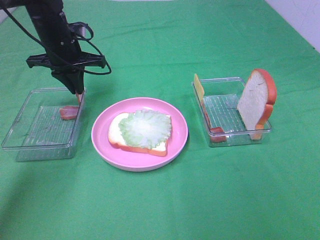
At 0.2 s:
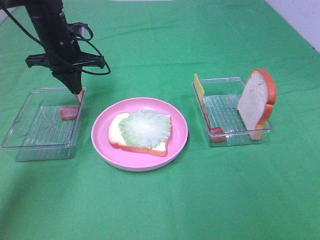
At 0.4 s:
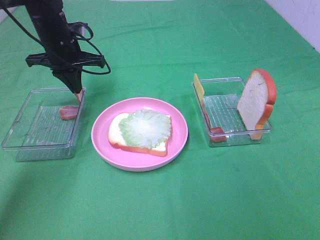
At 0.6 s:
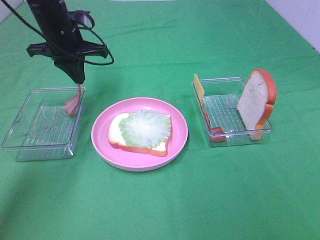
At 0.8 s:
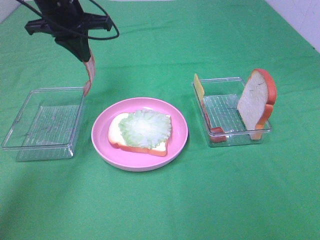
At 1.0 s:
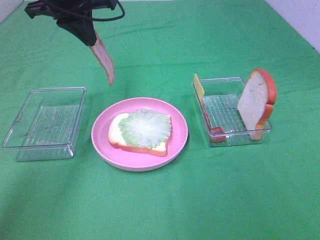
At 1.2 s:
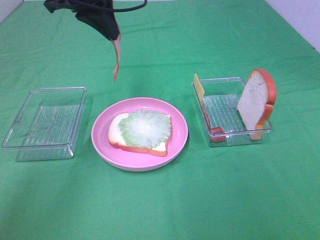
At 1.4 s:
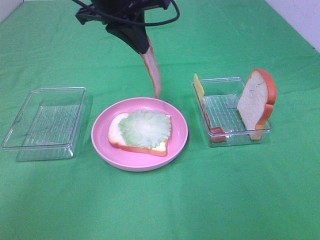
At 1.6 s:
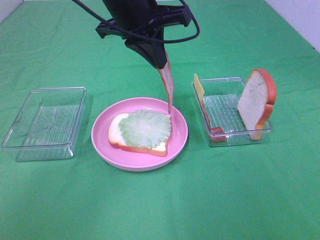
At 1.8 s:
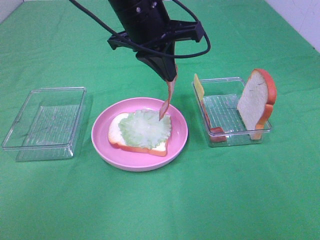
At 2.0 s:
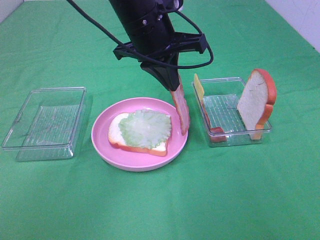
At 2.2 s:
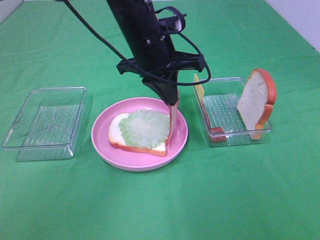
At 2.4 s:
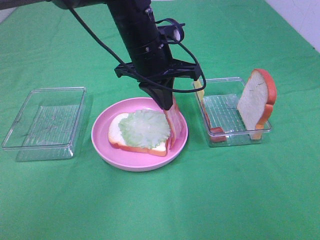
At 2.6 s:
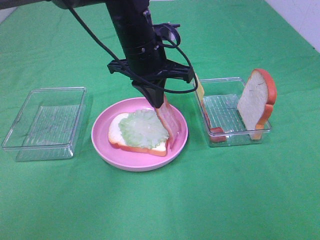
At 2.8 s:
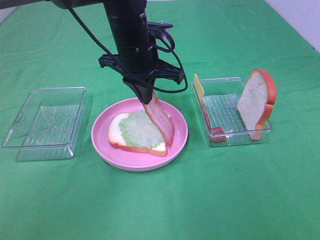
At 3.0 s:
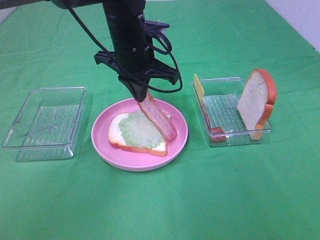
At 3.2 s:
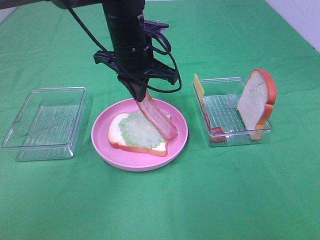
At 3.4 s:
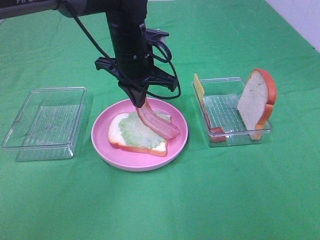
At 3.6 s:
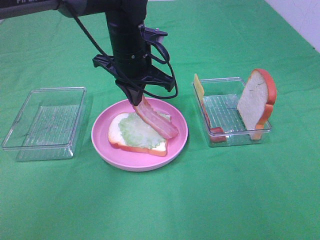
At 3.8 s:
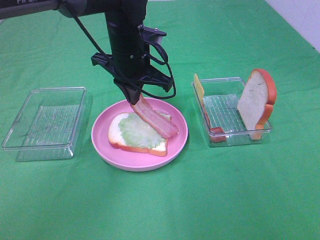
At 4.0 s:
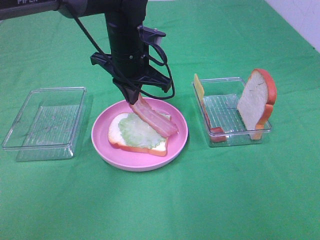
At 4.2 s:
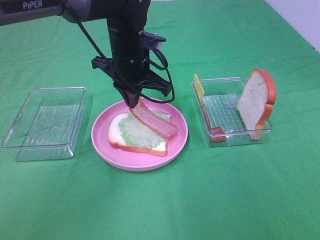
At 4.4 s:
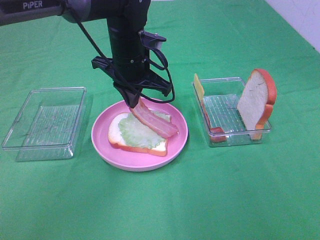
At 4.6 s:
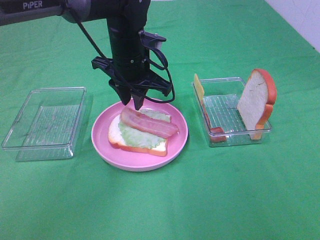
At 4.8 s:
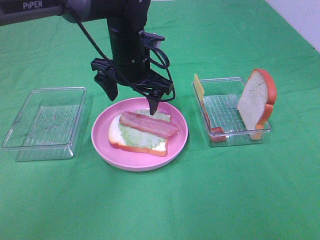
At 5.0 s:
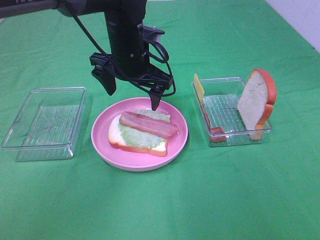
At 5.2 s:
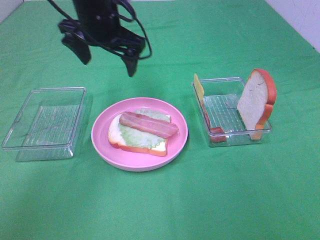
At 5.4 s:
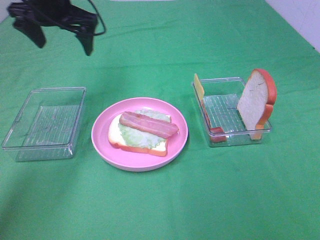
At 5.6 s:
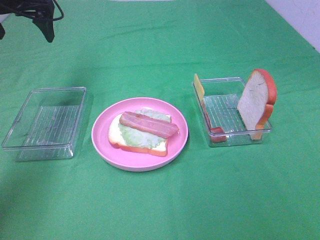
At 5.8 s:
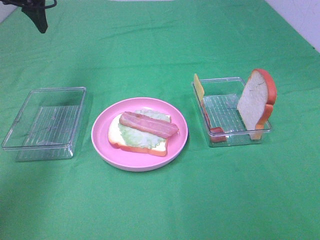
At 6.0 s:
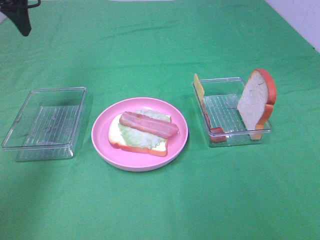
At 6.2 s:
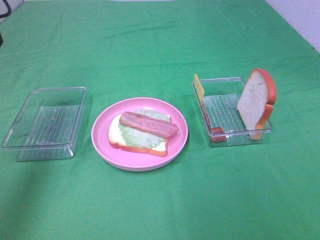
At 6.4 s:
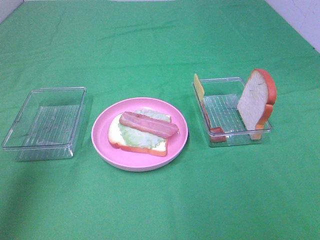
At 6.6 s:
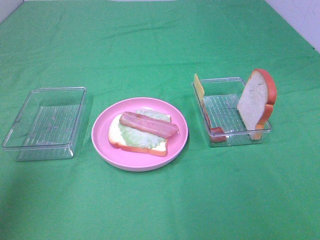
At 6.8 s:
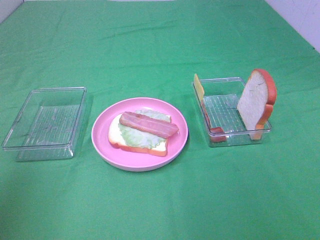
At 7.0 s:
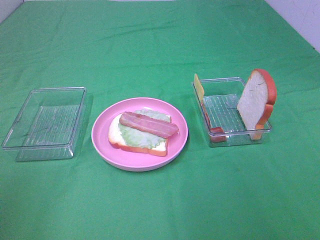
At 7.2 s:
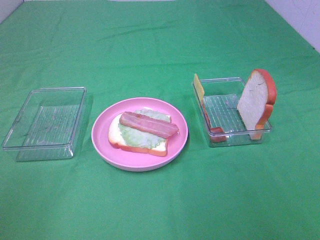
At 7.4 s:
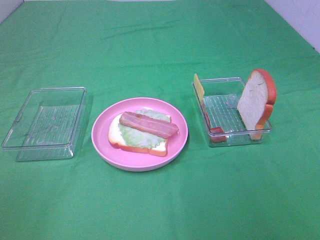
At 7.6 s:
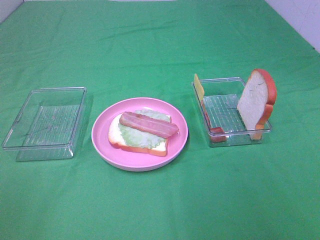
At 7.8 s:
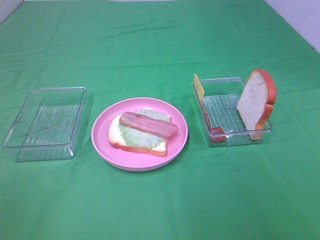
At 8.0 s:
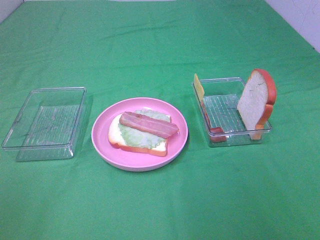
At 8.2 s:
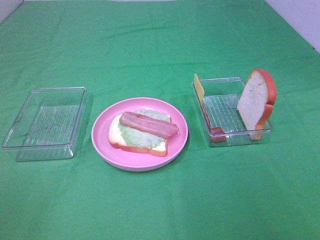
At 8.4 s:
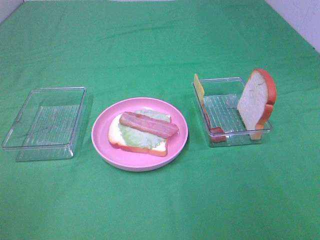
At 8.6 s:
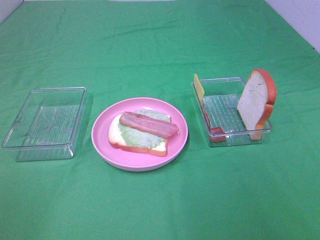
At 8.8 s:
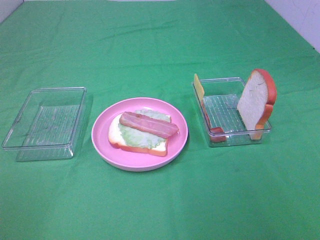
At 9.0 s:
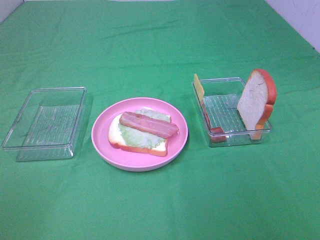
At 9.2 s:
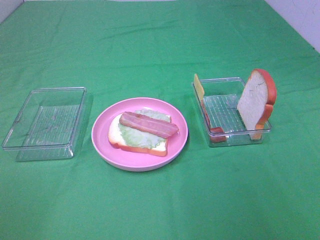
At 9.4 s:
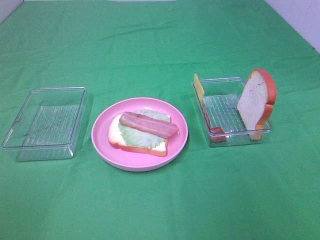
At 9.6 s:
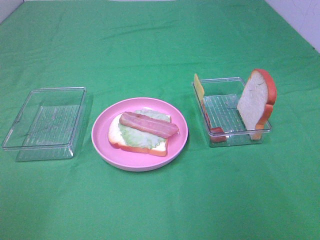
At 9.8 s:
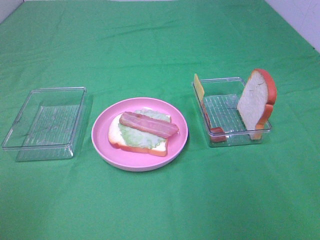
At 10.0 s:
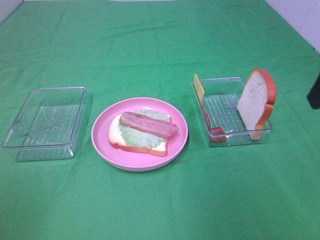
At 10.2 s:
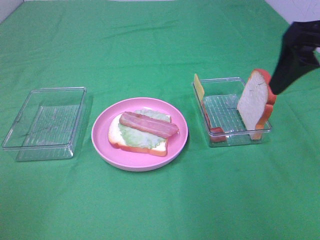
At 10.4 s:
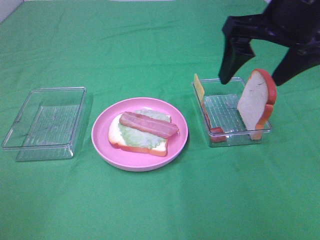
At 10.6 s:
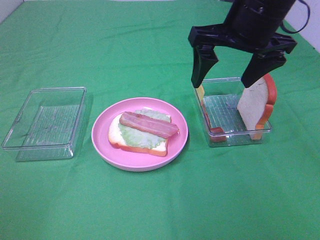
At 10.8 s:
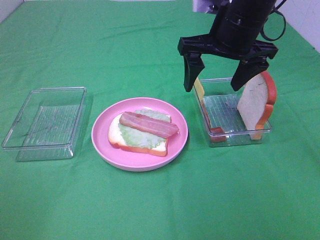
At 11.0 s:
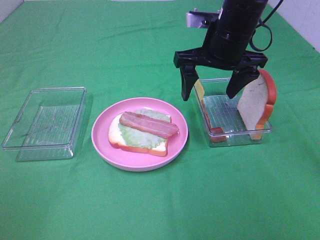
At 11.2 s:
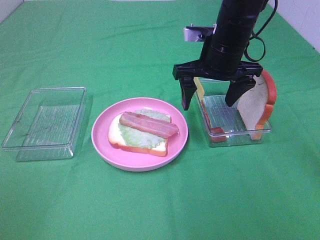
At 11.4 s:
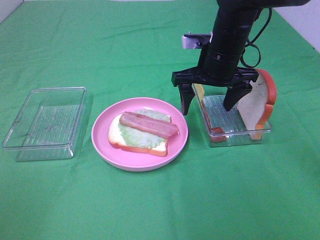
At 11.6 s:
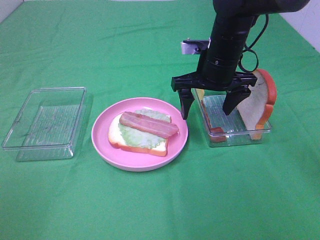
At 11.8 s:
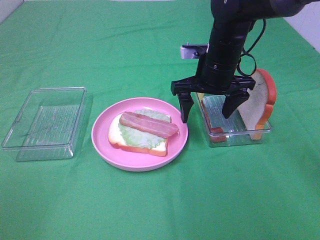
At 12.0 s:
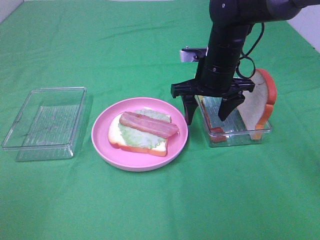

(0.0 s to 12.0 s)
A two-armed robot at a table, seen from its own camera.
Task of the whole recording: Make sandwiches.
Step, 0.8 s - 4.8 s: Left hand:place bacon on lettuce slice.
0.0 s - 1.6 s: The left gripper heads to the right, upward and backward, covering about 20 cm.
1.6 s - 3.0 s: The left gripper is displaced downward by some 10 cm.
3.0 s - 4.4 s: The grippers move only a little.
4.4 s - 6.0 s: The left gripper goes some 30 cm to the left and upward, and opens its fingers.
6.0 s - 7.6 s: The left gripper heads backward, covering some 40 cm.
9.0 s - 10.4 s: The right gripper heads forward and to the left, covering roughly 35 cm.
10.4 s - 12.0 s: The right gripper moves downward and forward, about 15 cm.

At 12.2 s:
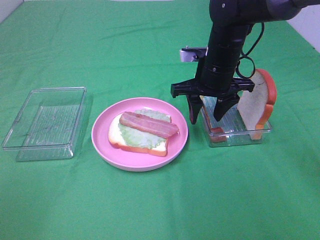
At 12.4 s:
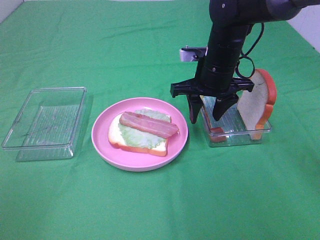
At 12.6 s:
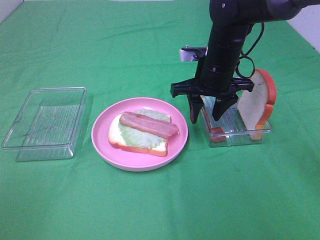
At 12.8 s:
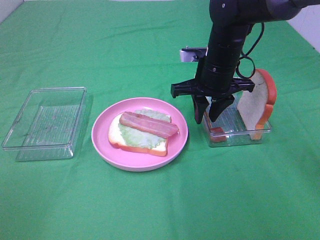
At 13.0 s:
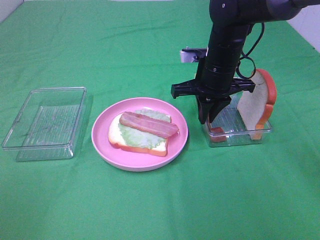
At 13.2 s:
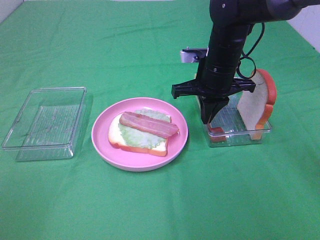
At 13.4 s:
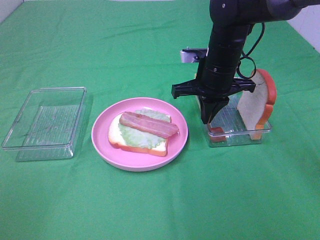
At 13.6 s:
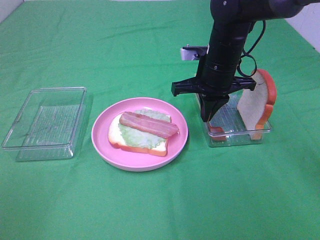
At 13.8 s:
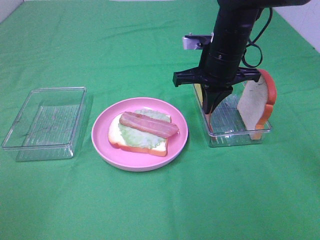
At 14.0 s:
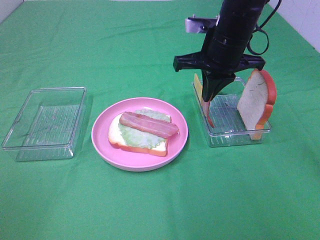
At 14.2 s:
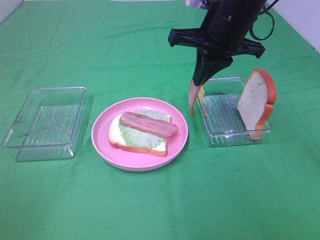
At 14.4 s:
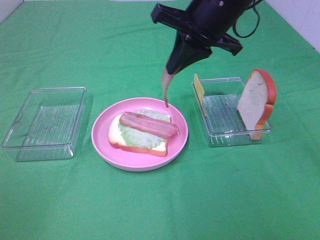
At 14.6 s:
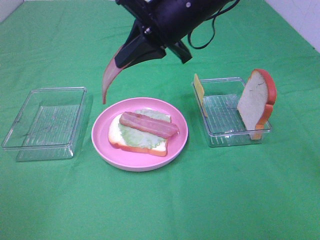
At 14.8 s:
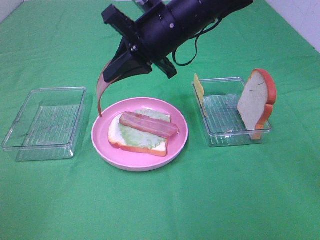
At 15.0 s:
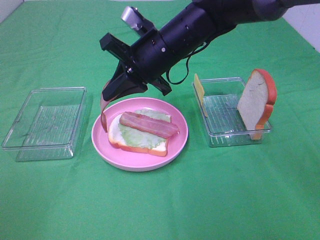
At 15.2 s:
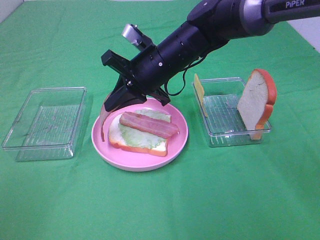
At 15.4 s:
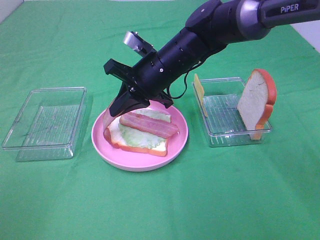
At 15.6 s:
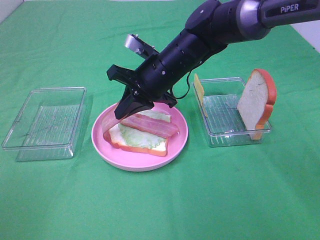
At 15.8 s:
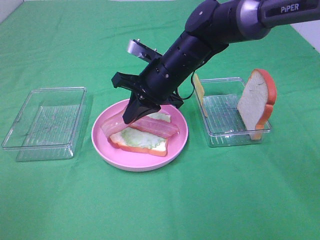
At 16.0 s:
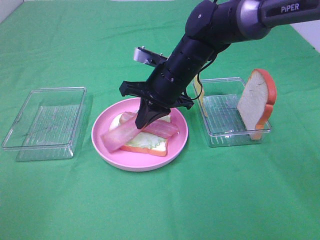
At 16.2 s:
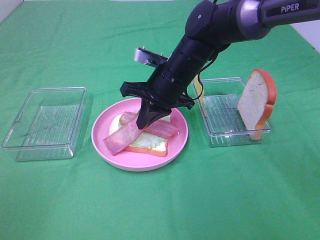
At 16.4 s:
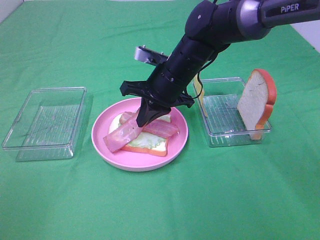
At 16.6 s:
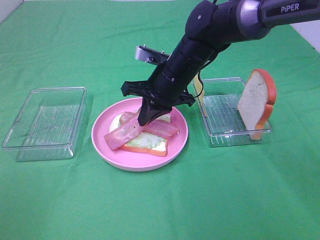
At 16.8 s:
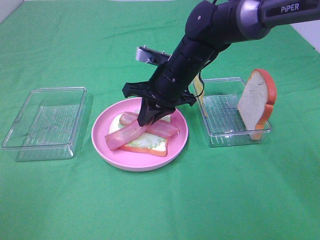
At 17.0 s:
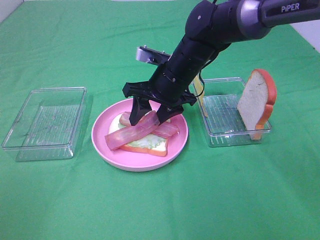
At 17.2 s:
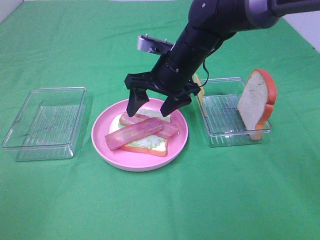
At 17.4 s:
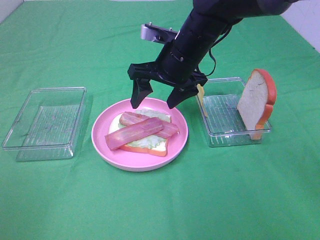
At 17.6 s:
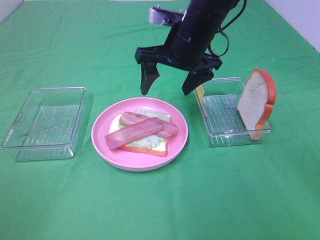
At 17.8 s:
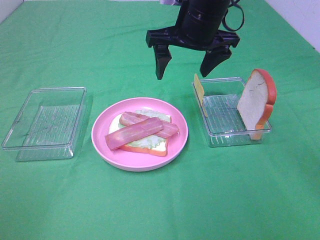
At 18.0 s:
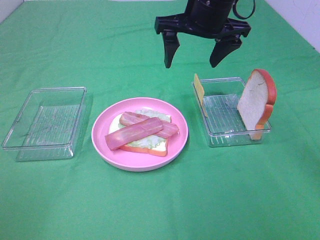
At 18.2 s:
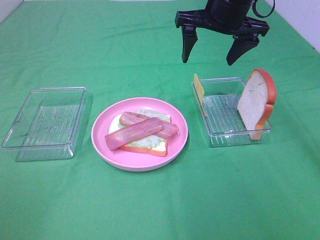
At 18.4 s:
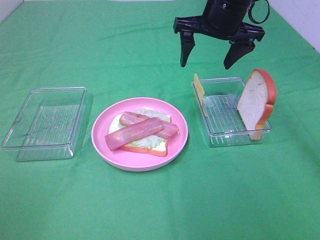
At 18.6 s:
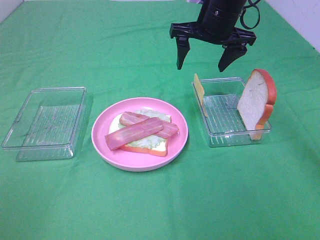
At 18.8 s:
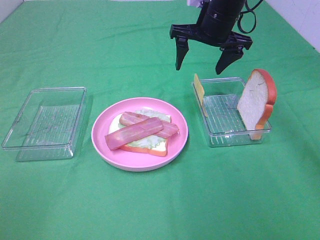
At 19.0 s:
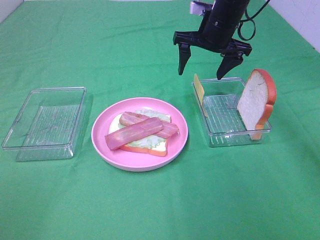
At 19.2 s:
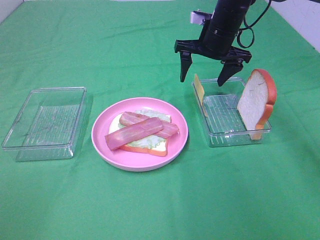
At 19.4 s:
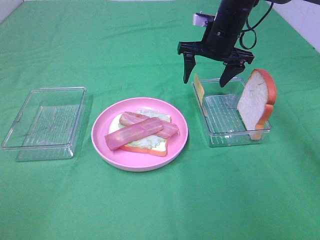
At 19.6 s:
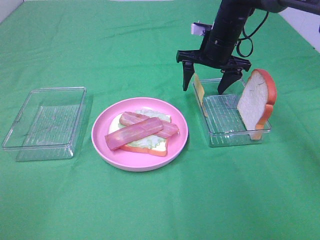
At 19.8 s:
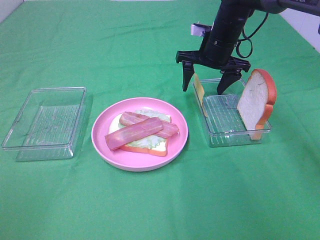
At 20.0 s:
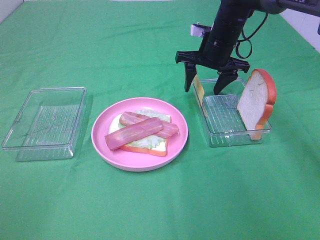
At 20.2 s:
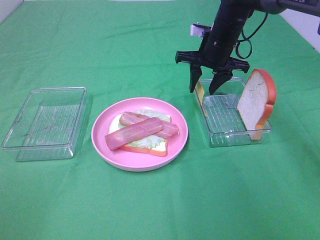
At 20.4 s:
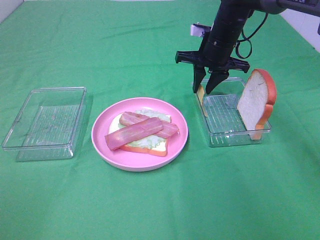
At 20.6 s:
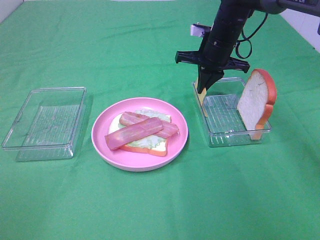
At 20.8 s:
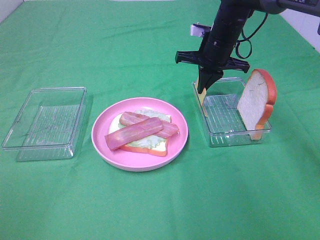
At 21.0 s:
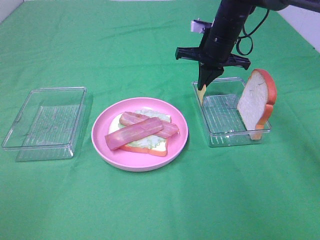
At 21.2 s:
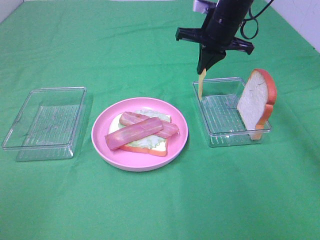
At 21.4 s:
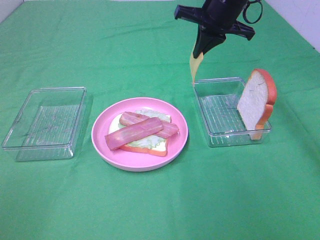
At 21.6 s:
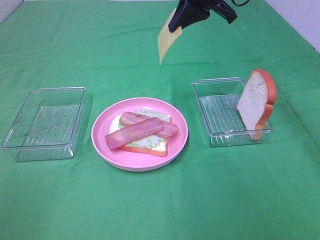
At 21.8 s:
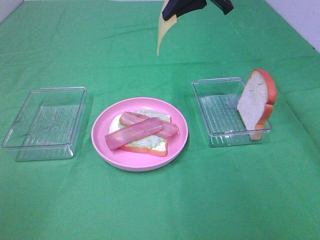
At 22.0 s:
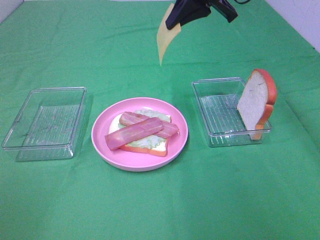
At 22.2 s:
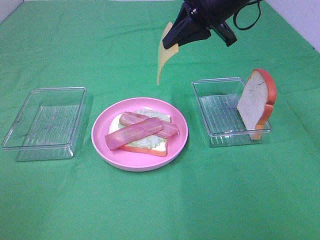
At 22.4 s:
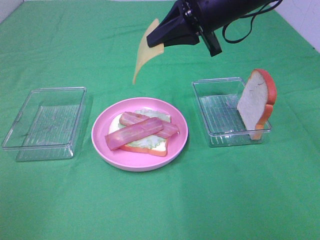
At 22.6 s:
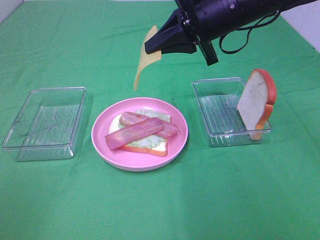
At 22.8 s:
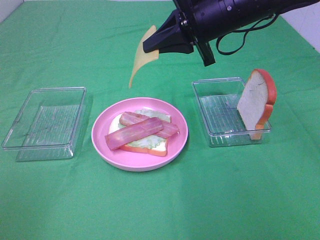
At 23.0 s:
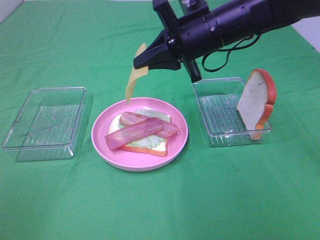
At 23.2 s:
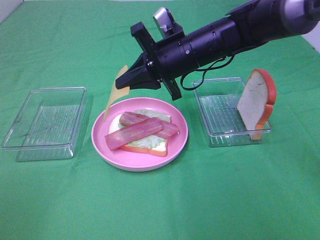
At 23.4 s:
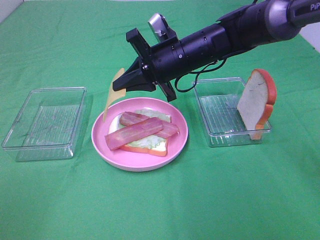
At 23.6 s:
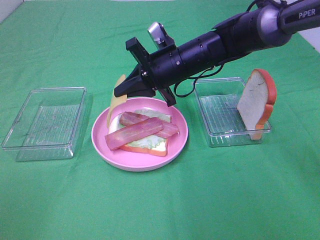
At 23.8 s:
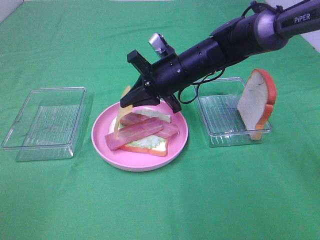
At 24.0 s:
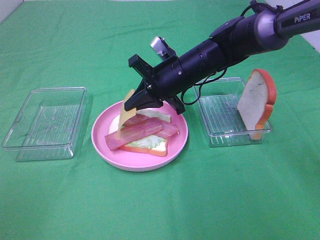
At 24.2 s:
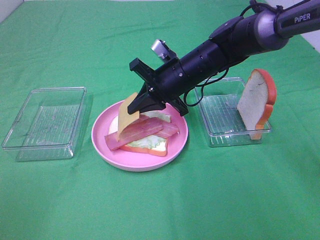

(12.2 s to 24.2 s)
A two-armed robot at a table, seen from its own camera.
Task of the whole recording: Make sandwiches.
Step, 13.8 s - 17.4 s: Right hand:place bacon on bacon.
Step, 17.6 s - 20.8 s: Right hand:grab the cheese slice.
12.2 s - 13.8 s: The right gripper closes up.
13.8 s - 15.2 s: The right gripper moves to the left, about 10 cm, and reaches approximately 10 cm upward, then returns.
16.6 s - 18.2 s: The right gripper goes some 15 cm upward and to the right, and opens.
18.2 s - 19.8 s: The right gripper heads downward and forward, covering about 10 cm.
19.8 s - 21.2 s: The right gripper is displaced upward by roughly 5 cm, and closes its fingers.
21.2 s - 22.6 s: The right gripper goes some 10 cm backward.
22.6 s - 24.2 s: The right gripper is displaced downward by roughly 15 cm.
